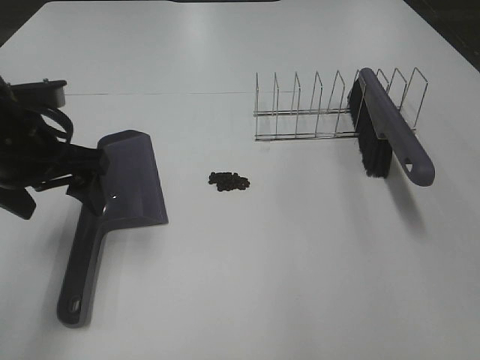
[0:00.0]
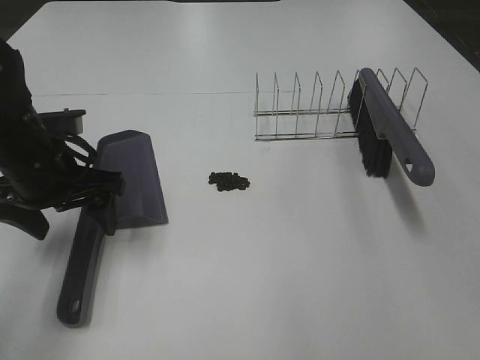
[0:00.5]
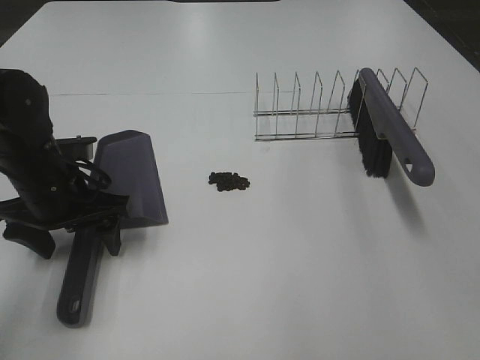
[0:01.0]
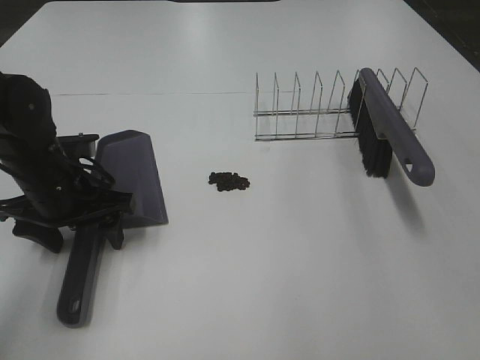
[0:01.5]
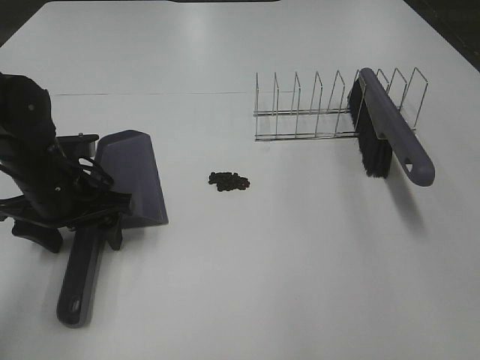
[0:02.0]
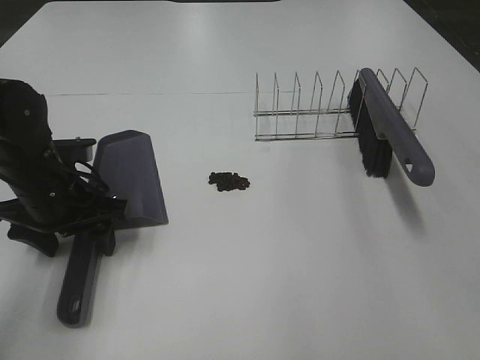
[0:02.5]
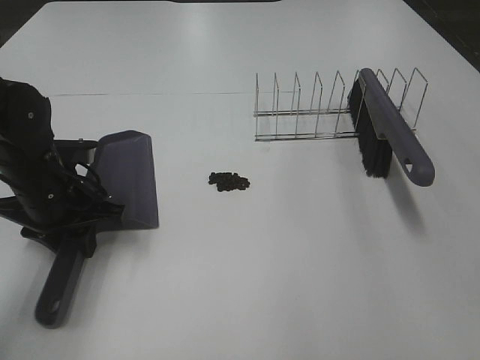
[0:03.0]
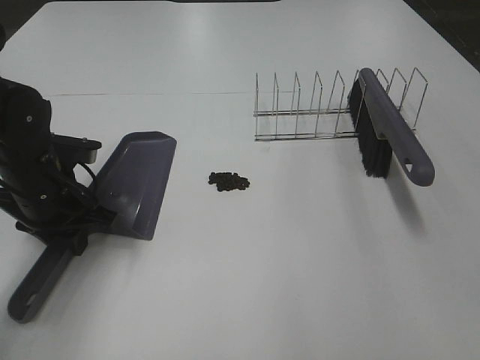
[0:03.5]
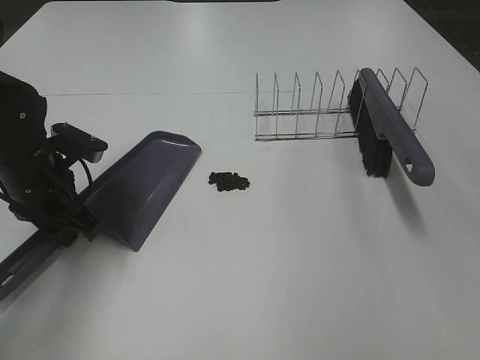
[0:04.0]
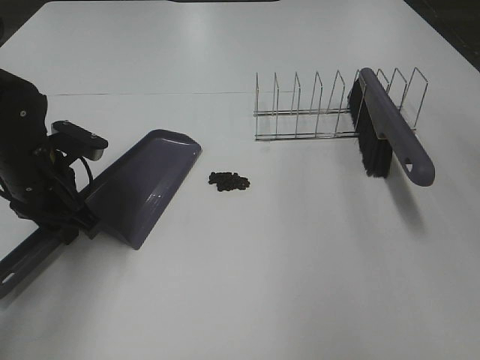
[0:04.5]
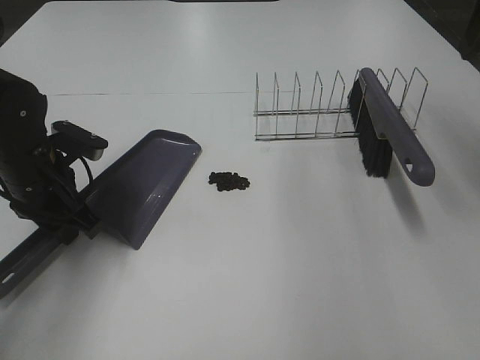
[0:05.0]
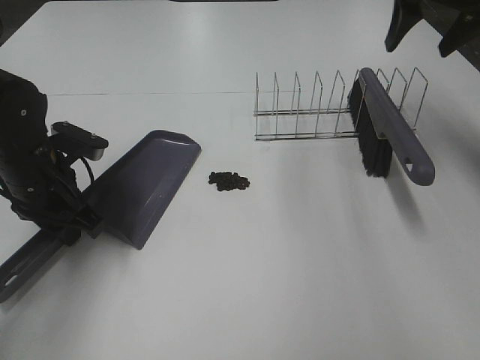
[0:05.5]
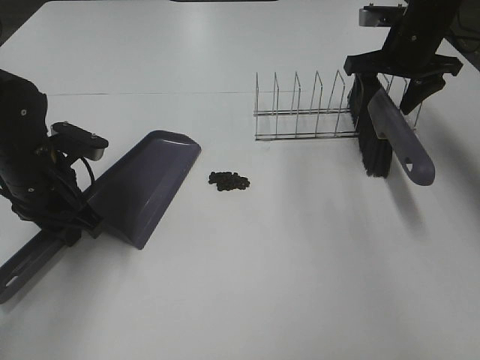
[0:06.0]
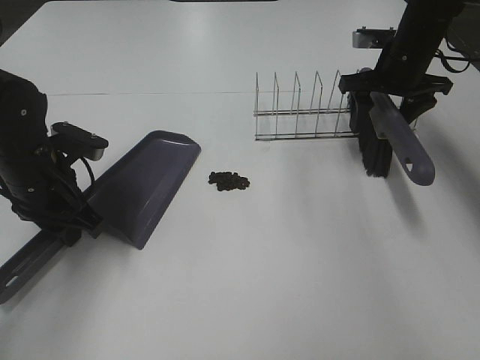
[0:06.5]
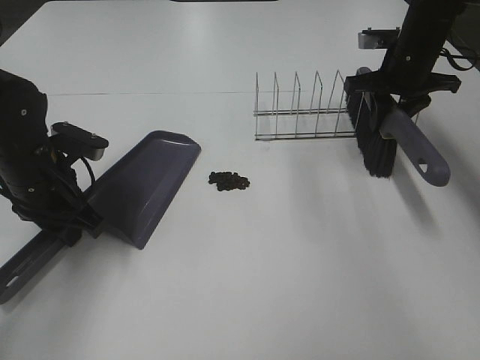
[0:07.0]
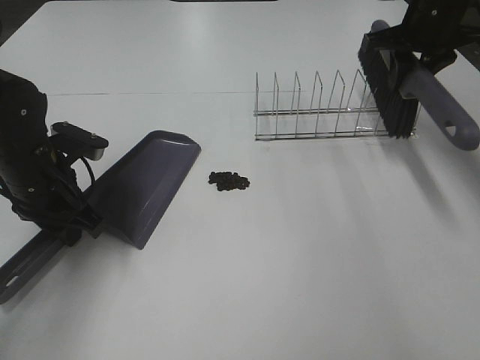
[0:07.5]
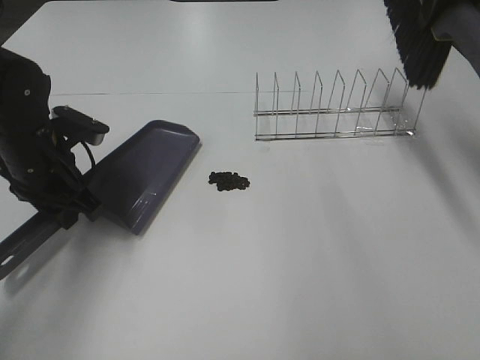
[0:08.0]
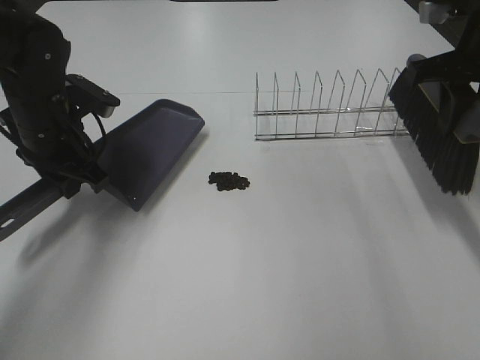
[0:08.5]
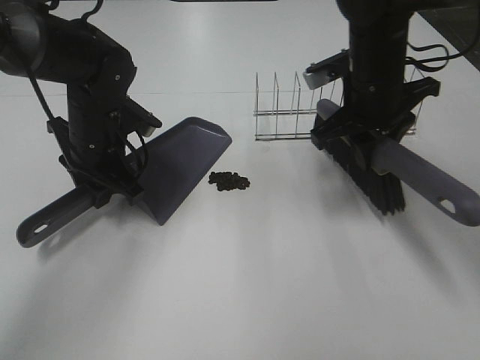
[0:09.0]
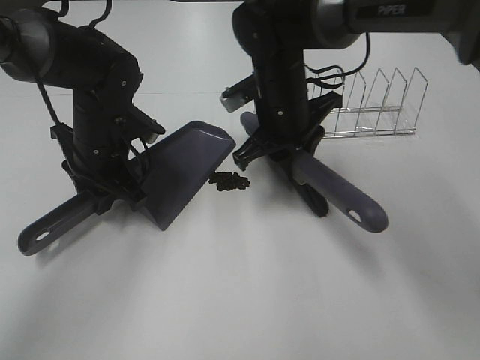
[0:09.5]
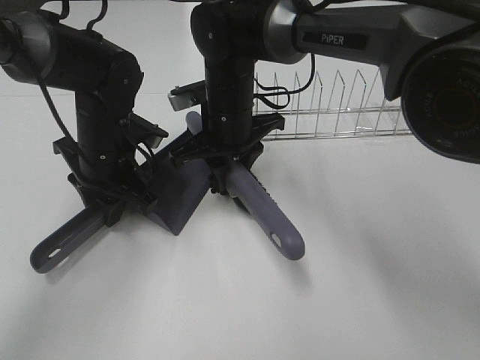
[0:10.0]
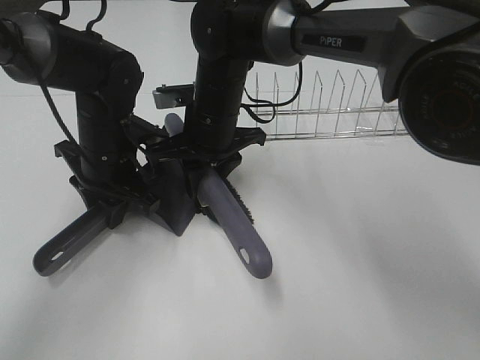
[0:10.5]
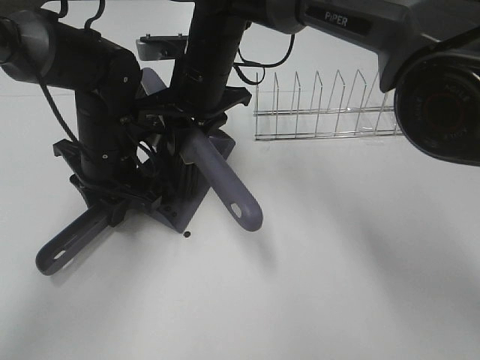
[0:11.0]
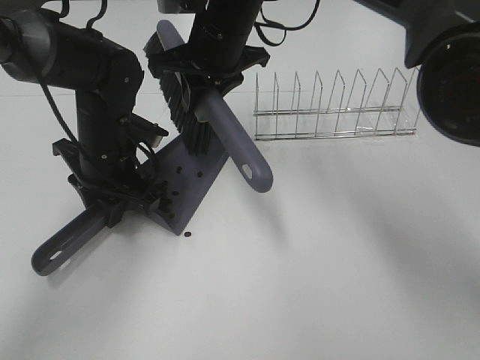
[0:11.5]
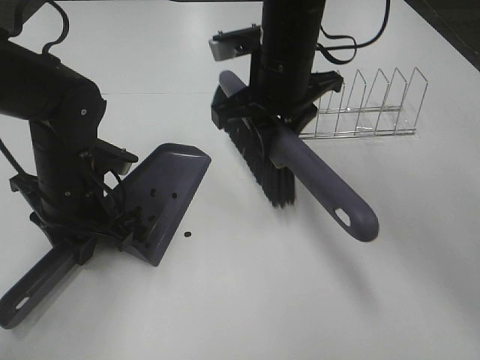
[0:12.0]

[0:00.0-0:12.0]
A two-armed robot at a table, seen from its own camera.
Task of the whole recording: Sweep Coffee Bean.
Step, 0:00.0 to 0:03.0: Left hand: grab the dustpan.
Step, 0:03.5 to 0:06.5: Right hand:grab the broom.
0:00.0 to 0:02.0: The left gripper goes approximately 10 cm downward.
0:02.0 to 0:04.0: The left gripper closes; the right gripper moves upward and forward, roughly 10 cm.
0:04.0 to 0:06.0: The right gripper moves forward, roughly 40 cm.
0:06.0 to 0:08.0: The right gripper heads upward and backward, covering approximately 15 cm, and closes up.
0:08.0 to 0:10.0: The left gripper goes some 5 cm to the right. Meanwhile the right gripper moves to the left and downward, about 35 cm.
0:10.0 to 0:12.0: The left gripper travels backward by about 5 cm. Meanwhile the right gripper moves upward and to the right, some 10 cm.

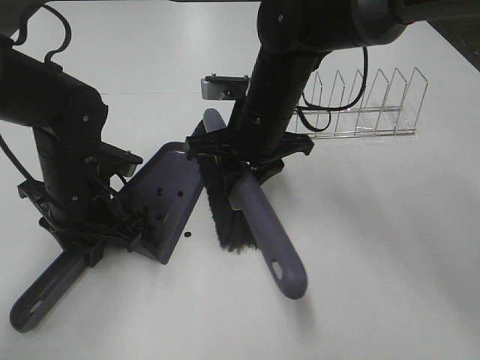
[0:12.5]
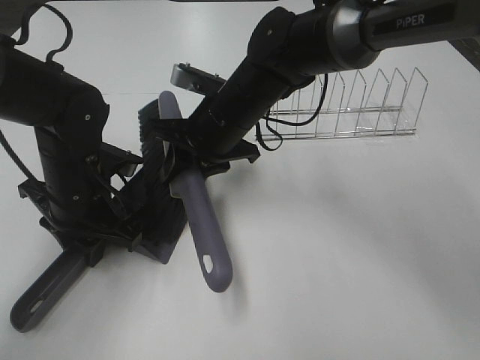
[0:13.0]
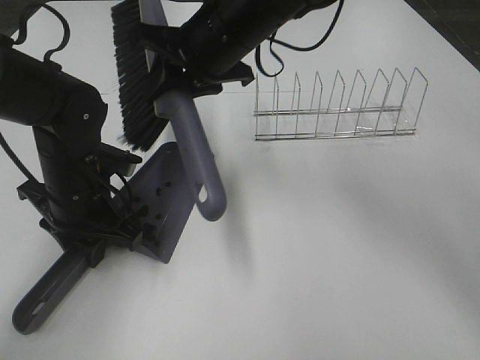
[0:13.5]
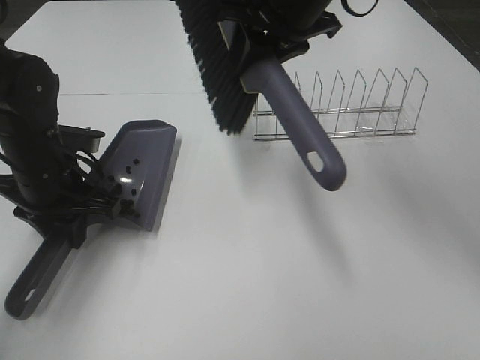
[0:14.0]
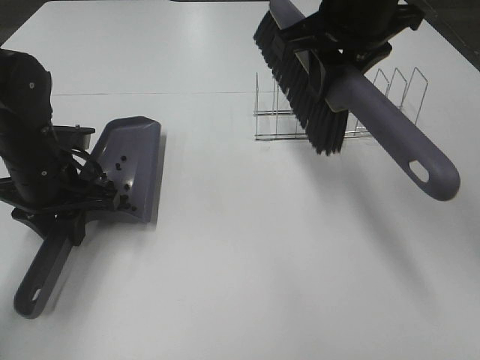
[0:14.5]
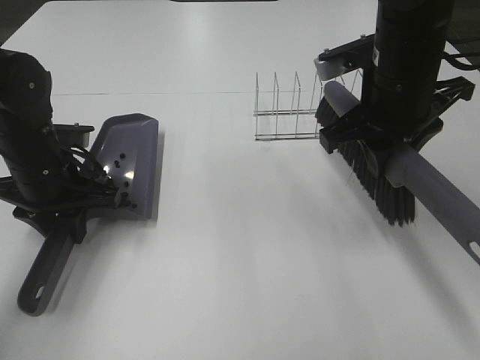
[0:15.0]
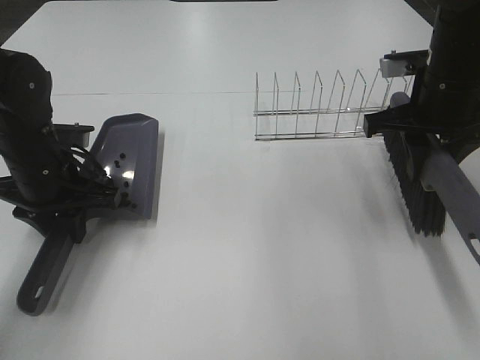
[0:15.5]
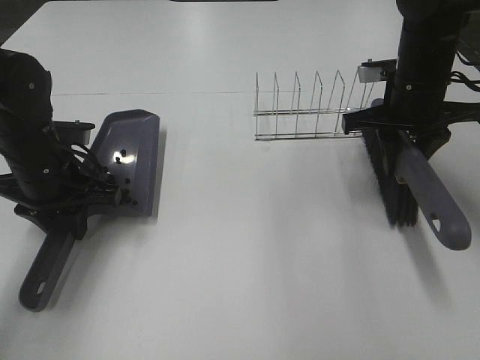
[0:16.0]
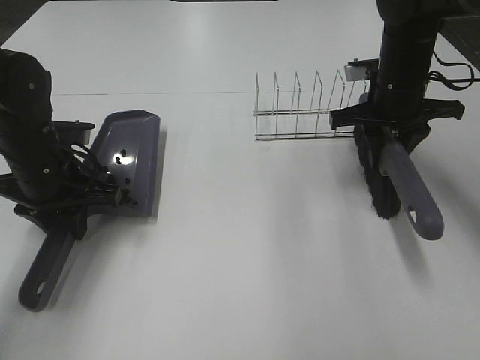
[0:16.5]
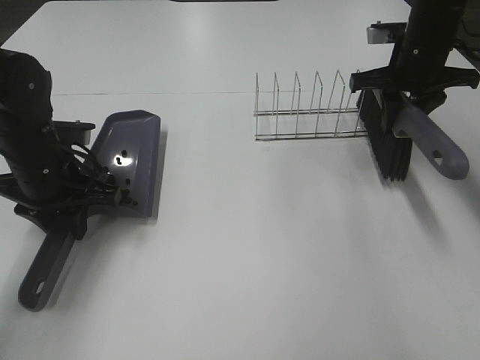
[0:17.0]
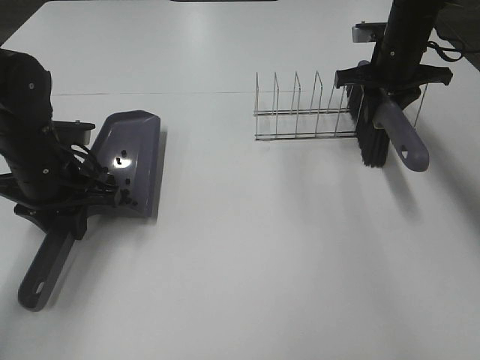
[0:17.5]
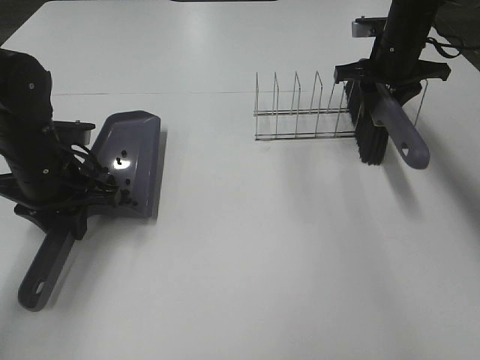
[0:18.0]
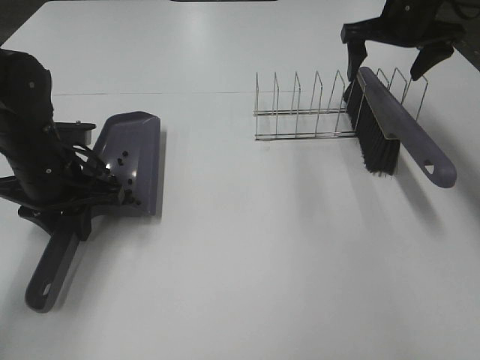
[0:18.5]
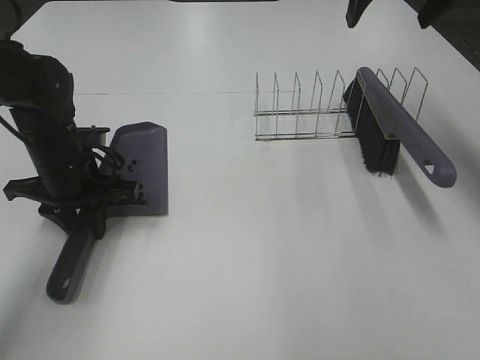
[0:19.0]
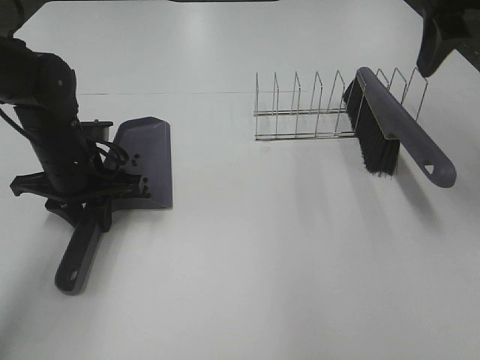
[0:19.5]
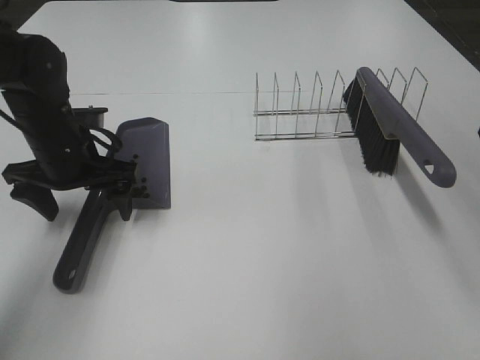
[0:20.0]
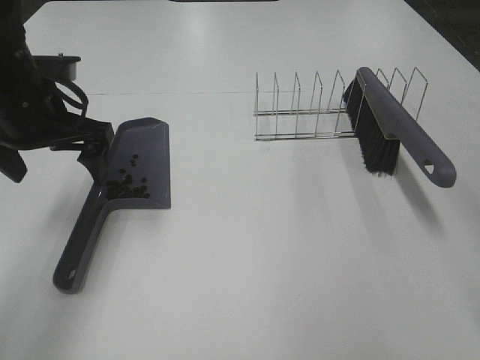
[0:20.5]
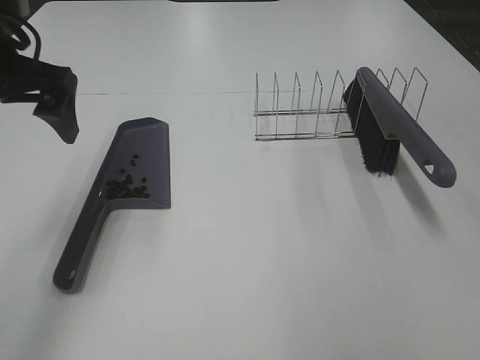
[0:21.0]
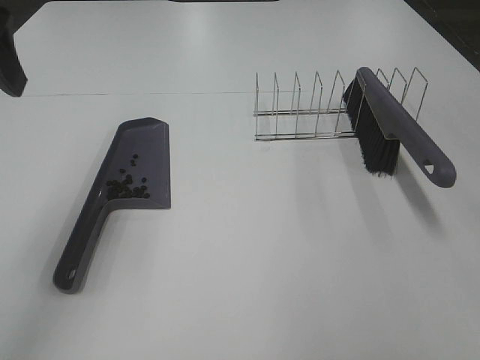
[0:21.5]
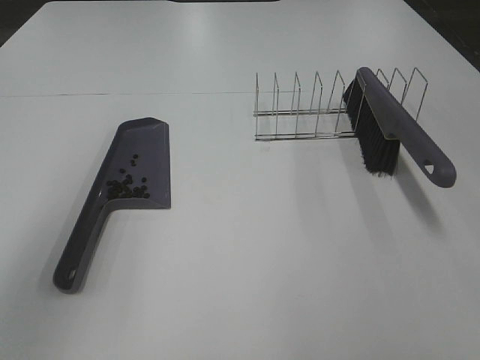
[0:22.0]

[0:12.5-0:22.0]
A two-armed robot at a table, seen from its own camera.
Task of the whole recording: Sweep Coffee Bean.
Step, 0:13.5 to 0:18.0: Right hand:place the broom on the rack.
Step, 0:18.5 to 0:20.0: Left hand:place the dustpan on the table.
0:12.5 to 0:14.5: The right gripper goes roughly 15 cm upward and to the right. Meanwhile the left gripper ends up roughly 5 cm from where it was.
0:14.5 to 0:16.5: The right gripper heads downward, to the right and forward, covering approximately 15 cm.
0:16.5 to 0:18.0: The right gripper heads forward, covering roughly 10 cm.
0:18.0 to 0:20.0: The left gripper opens its fingers. Meanwhile the right gripper travels backward and upward by some 35 cm, and opens up.
0:20.0 to 0:22.0: The left gripper moves upward and backward, about 35 cm.
